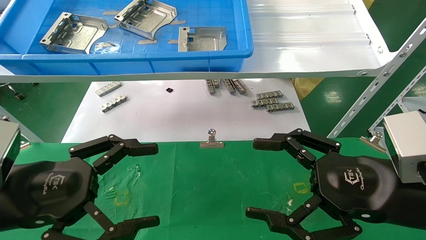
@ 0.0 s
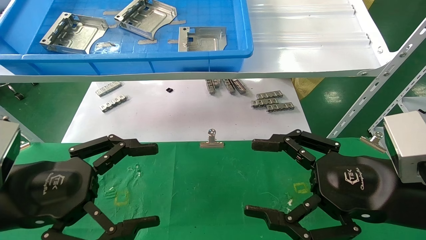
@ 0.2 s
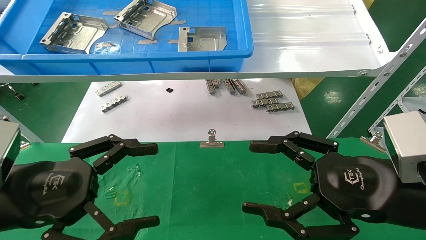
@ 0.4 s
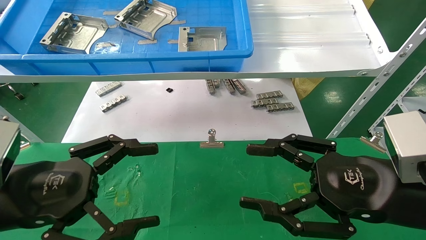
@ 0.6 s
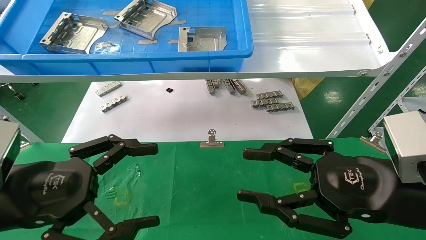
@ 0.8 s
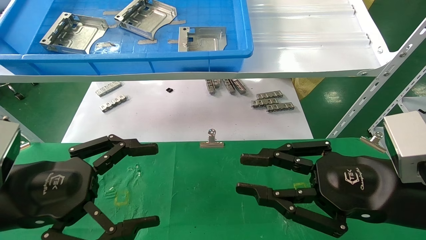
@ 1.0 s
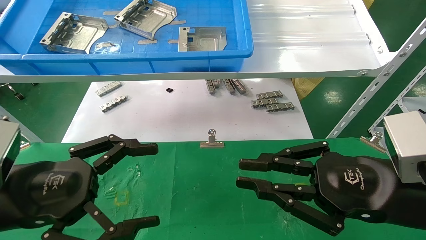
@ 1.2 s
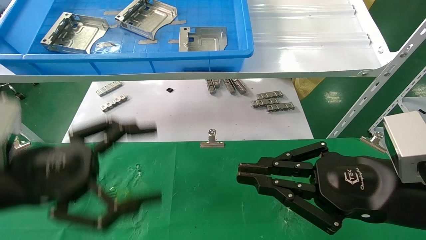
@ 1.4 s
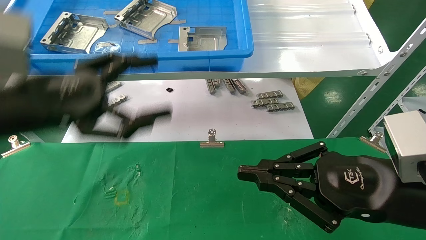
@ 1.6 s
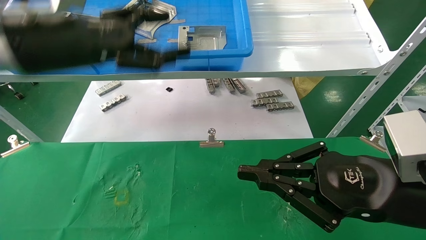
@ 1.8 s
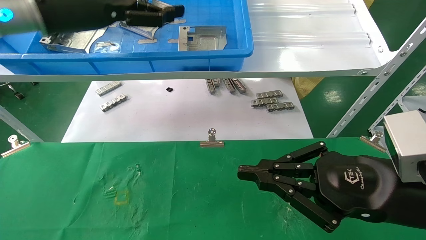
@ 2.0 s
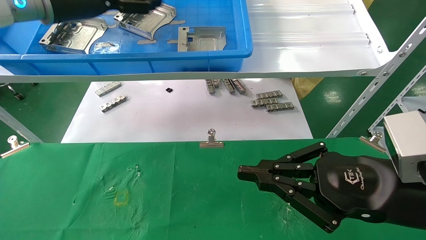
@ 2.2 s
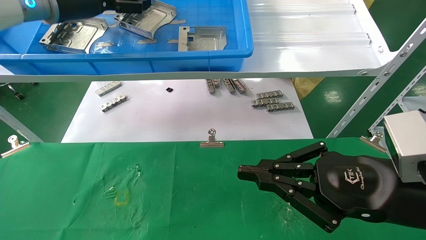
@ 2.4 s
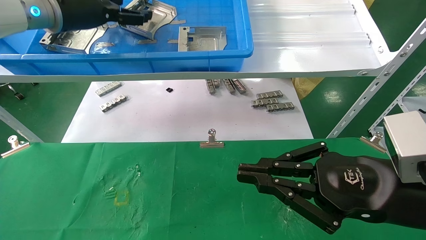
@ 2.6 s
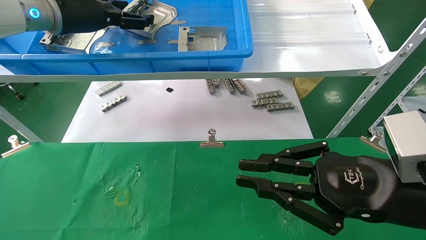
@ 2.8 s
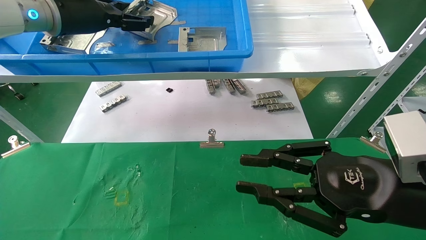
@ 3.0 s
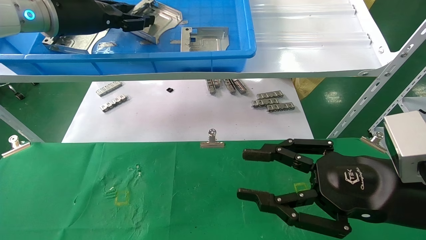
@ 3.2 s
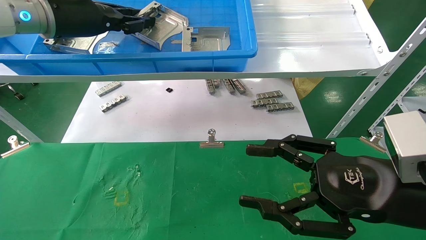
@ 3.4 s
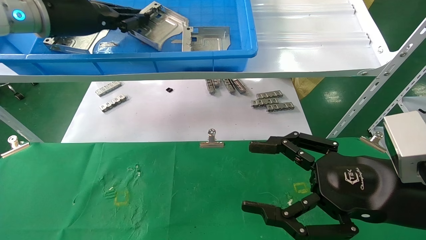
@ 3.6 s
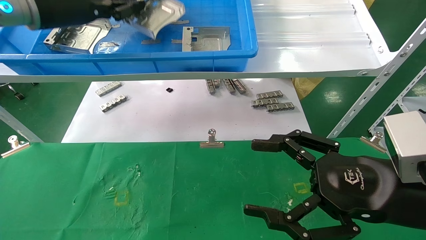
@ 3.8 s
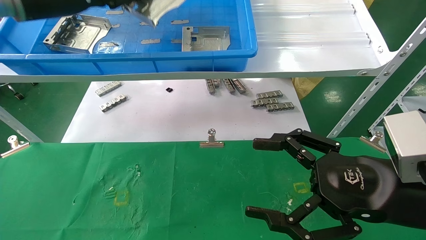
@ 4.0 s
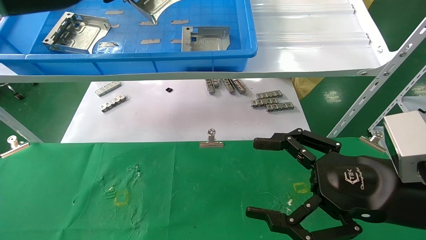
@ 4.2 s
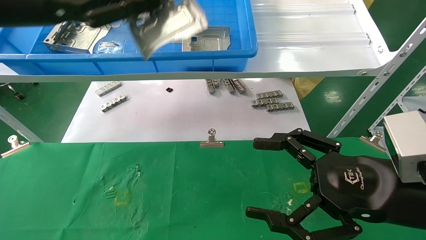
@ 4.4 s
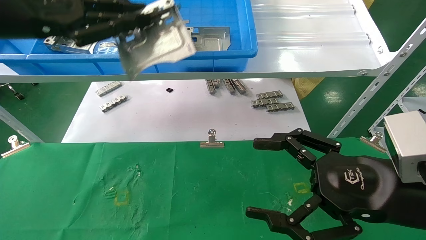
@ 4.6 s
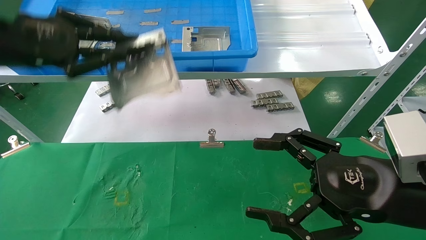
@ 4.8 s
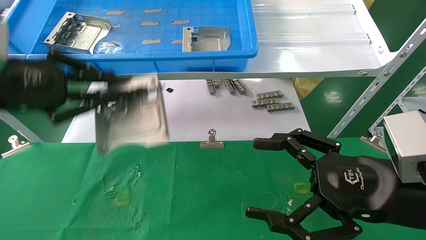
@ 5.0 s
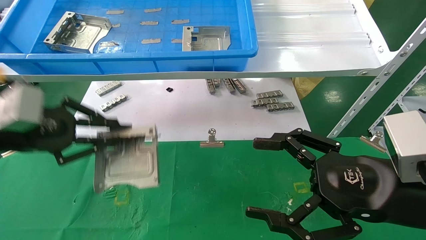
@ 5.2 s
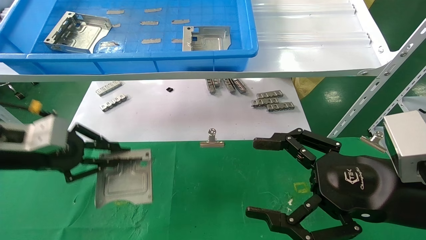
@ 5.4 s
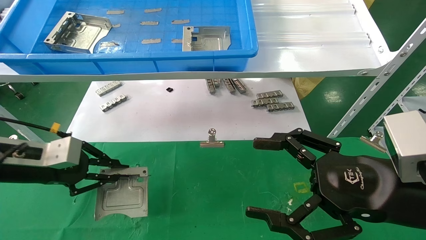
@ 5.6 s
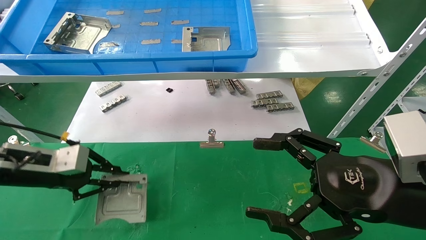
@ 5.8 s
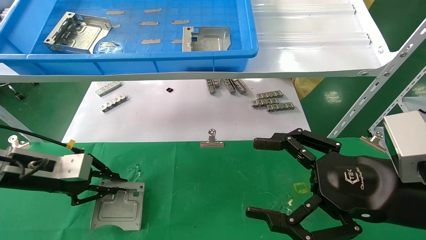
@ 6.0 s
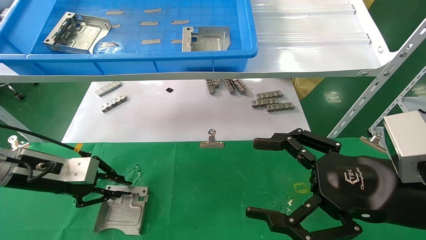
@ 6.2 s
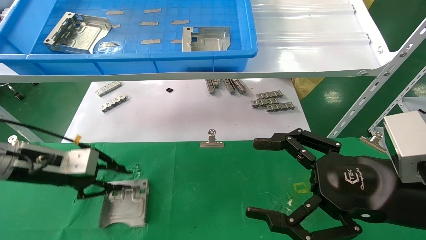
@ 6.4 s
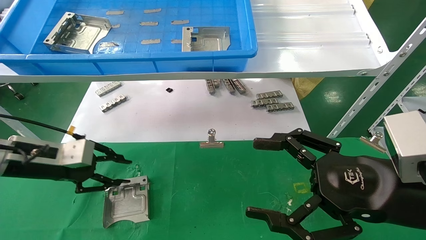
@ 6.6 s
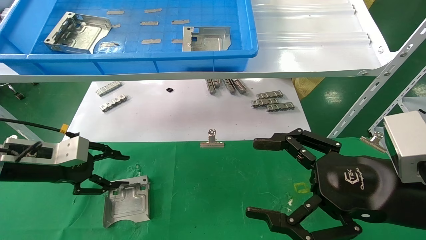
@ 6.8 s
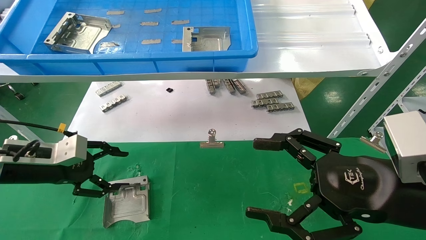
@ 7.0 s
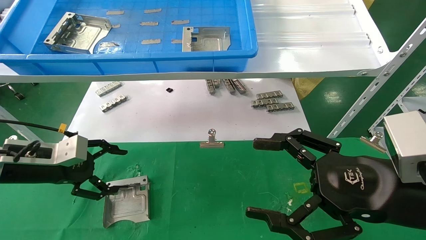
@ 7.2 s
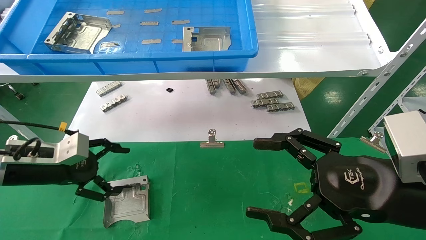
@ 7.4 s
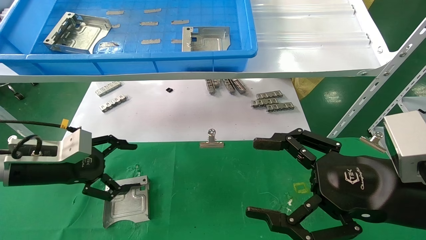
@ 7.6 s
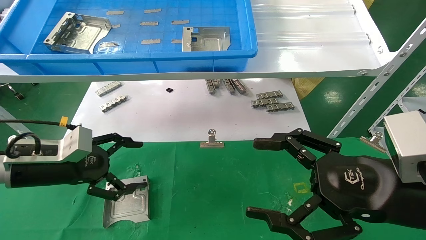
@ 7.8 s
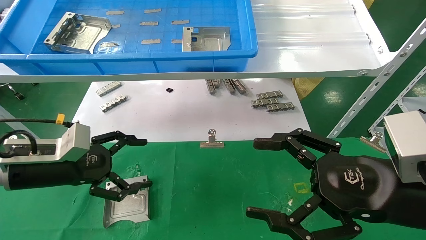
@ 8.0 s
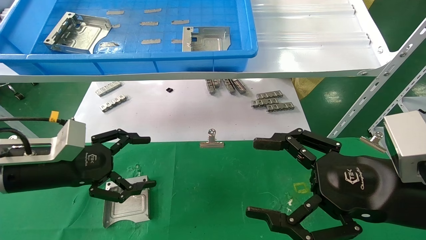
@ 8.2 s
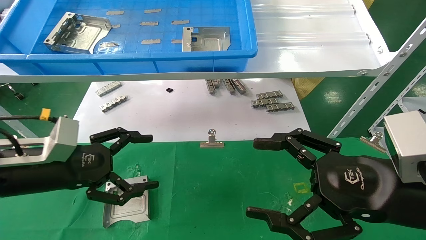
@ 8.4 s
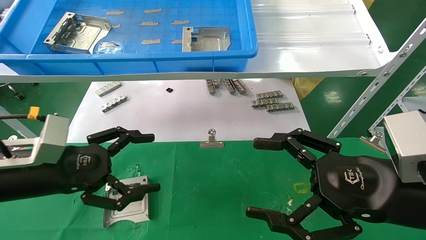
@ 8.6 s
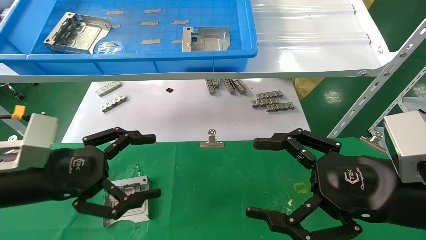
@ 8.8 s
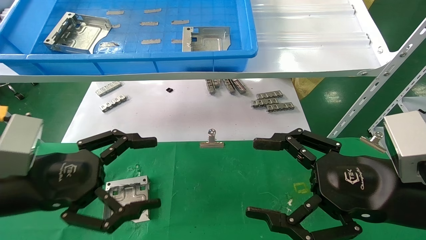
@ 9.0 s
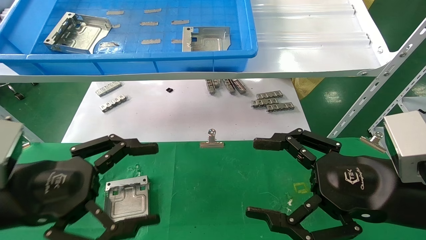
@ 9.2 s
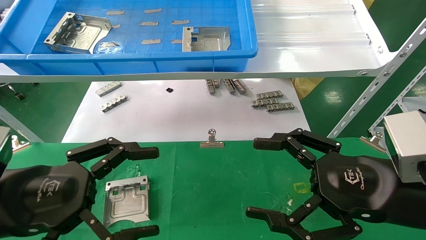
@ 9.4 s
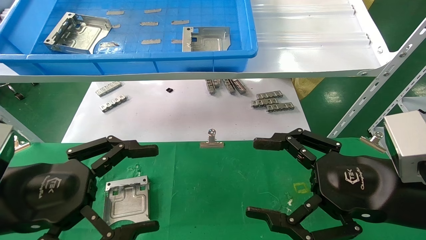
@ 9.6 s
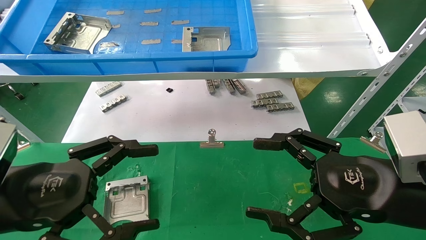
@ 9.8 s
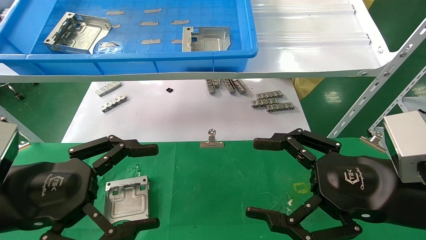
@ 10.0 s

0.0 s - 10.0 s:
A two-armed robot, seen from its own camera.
Task of the whole recording: use the mechanical arm to pick up the parts and place them on the table.
Step, 1.6 s - 3.6 s: Pick up the hard drive bracket from the feeding area.
Step, 3.8 s - 7.2 s: Place the hard drive bracket into the box.
0.0 s - 1.4 s: The left gripper moves roughly 5 cm, while the right gripper closes its fingers.
1.4 s - 2.8 s: The left gripper is displaced forward and upward by approximately 25 cm.
2.8 s - 4.2 s: The left gripper moves backward, about 10 cm, and closes, while the right gripper opens.
4.2 s - 5.8 s: The left gripper travels downward by some 25 cm.
5.8 s - 7.2 s: The left gripper opens up.
7.2 s - 8.6 s: The left gripper travels backward and to the right by some 10 cm.
8.6 s - 10.0 s: The left gripper shifts about 5 cm backward.

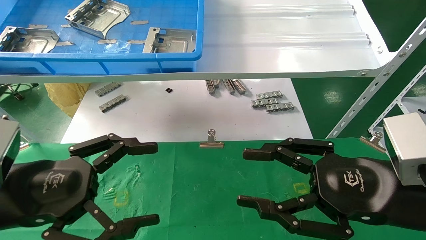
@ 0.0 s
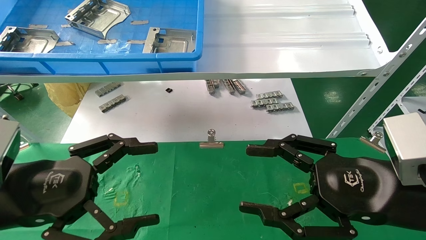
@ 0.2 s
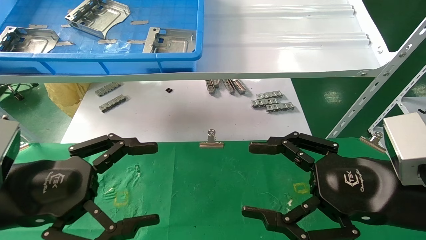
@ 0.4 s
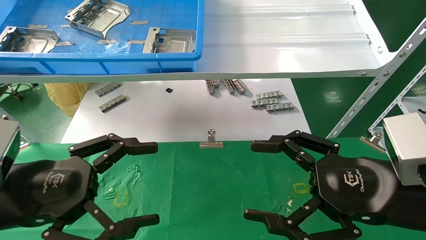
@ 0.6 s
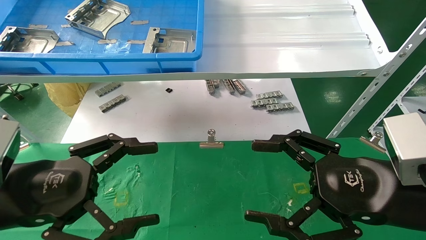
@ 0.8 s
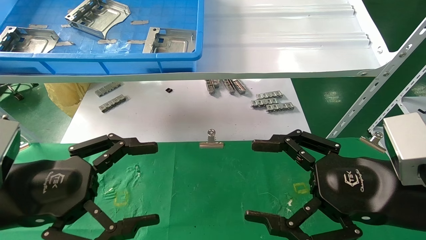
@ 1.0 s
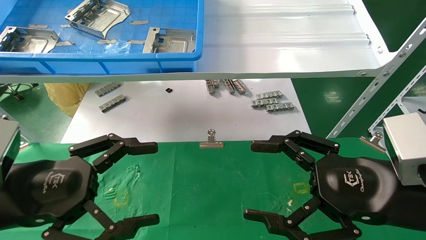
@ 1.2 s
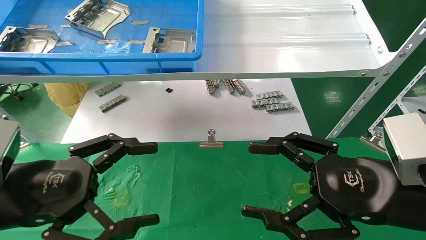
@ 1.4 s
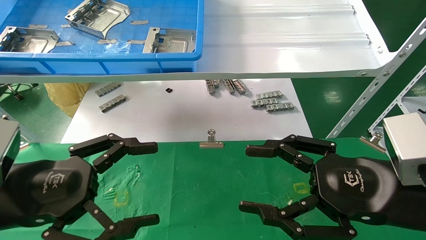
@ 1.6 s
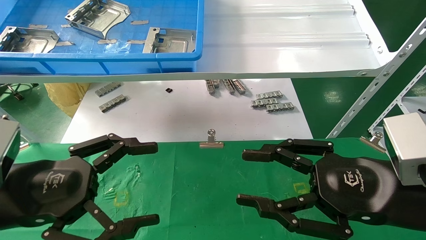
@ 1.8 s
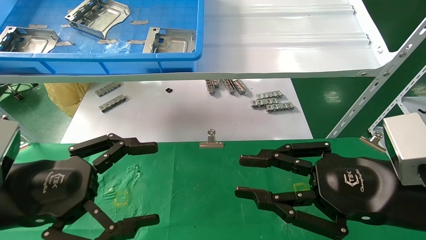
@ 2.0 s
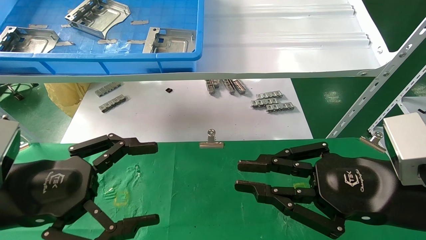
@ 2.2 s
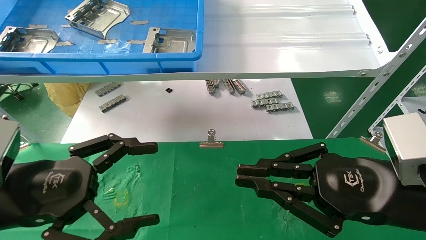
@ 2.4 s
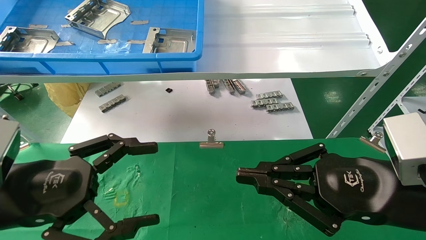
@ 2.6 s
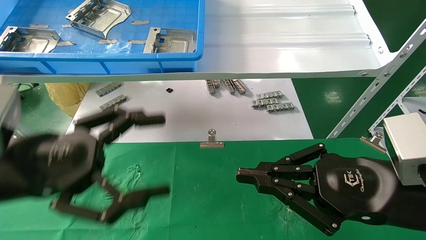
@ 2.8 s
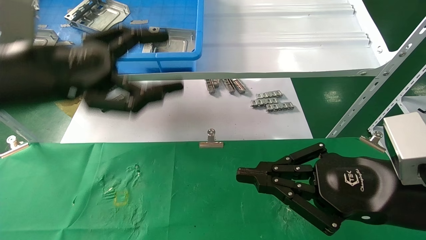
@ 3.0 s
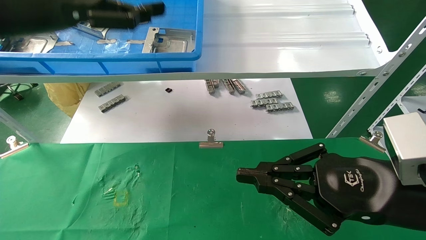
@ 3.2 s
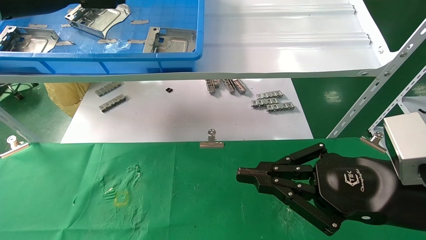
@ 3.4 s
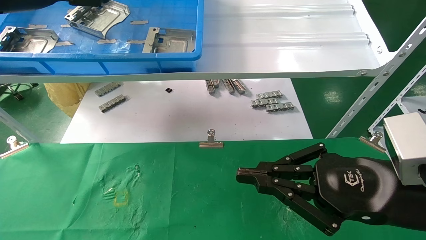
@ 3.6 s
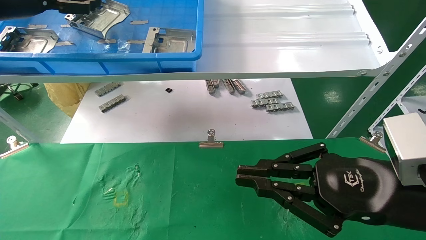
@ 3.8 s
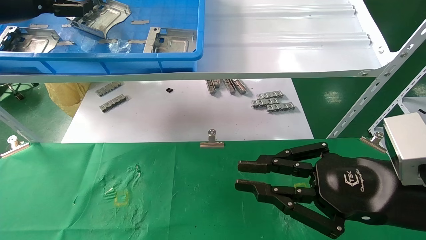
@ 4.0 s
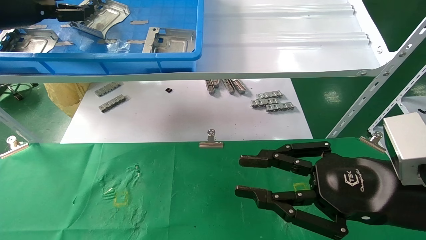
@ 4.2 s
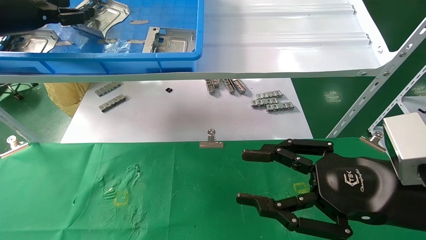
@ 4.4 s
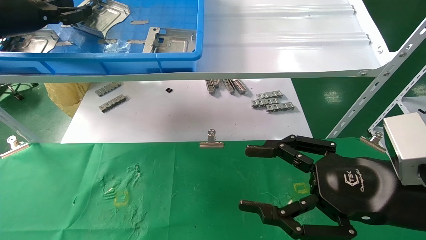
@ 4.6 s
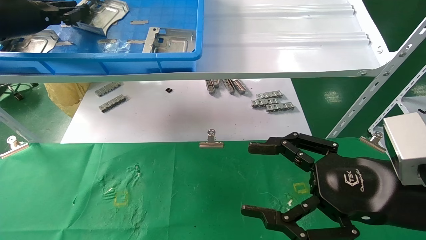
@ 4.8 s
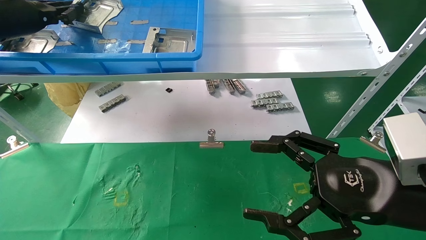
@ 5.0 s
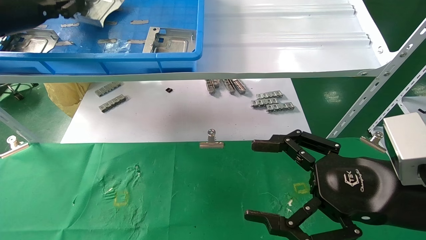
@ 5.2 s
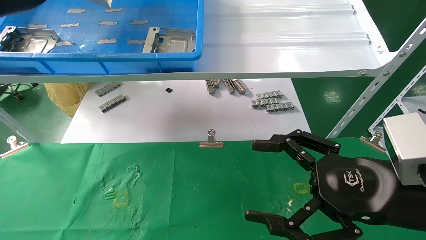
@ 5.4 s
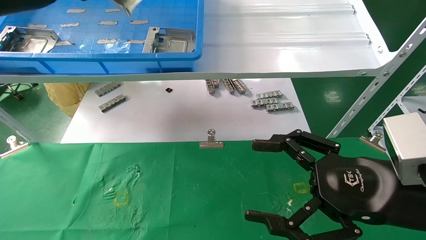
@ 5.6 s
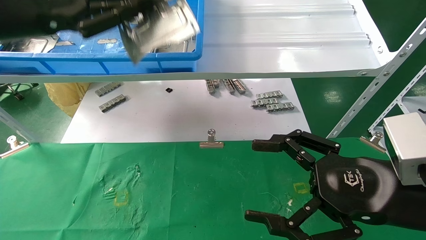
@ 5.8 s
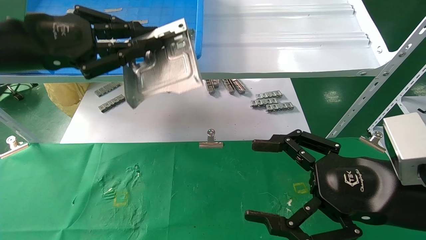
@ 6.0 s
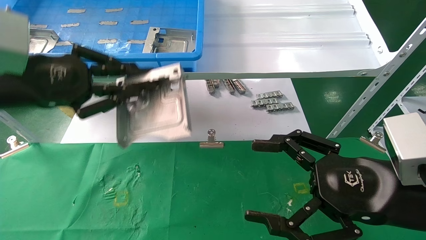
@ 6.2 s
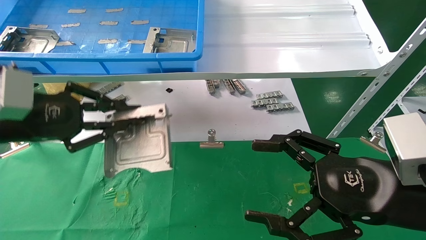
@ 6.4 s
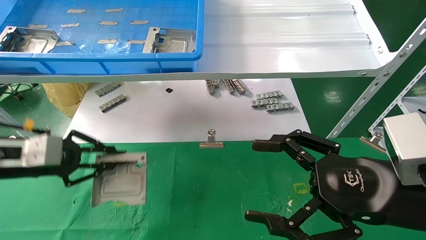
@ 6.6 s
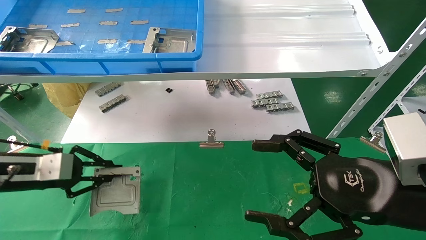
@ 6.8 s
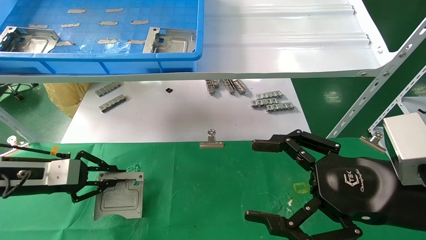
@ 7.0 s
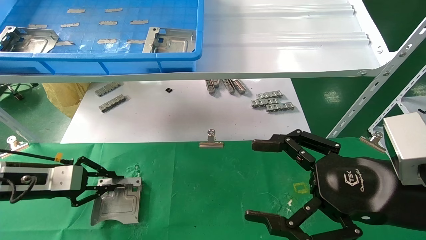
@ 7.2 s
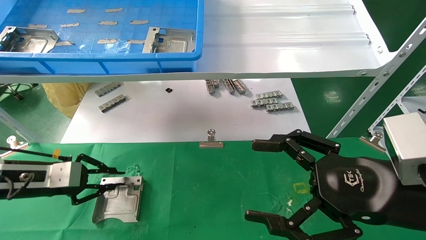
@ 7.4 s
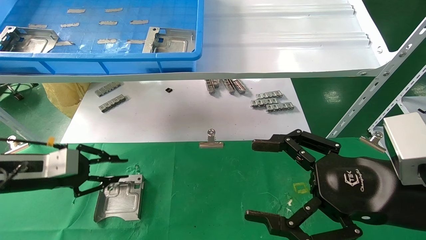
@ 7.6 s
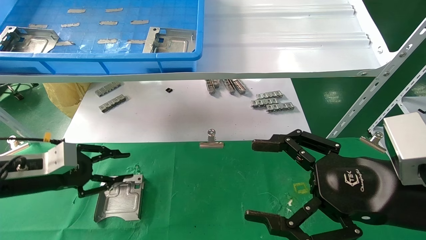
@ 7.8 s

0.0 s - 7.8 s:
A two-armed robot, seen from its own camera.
Task of the whole recording: use the mechanical arm to pick up the parts and place them on the table.
Step, 3.0 s - 5.0 s: Pick up the hard drive bracket from the feeding area.
Step, 5.2 s - 7.4 s: Place the hard drive bracket into the box.
0.0 s - 1.6 s: Neither gripper changes place.
1.6 s - 3.2 s: The right gripper closes up; the left gripper shifts about 25 cm upward and forward.
3.2 s - 4.6 s: The left gripper shifts about 15 cm to the left and forward, and closes its fingers; the right gripper opens.
4.6 s - 6.2 s: The right gripper opens its fingers. The left gripper travels backward, downward and to the right by approximately 15 cm, and closes.
6.2 s - 7.8 s: The left gripper travels downward by some 20 cm.
